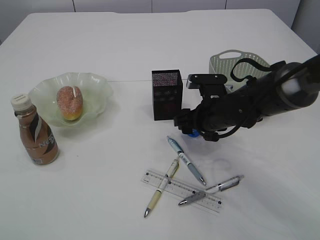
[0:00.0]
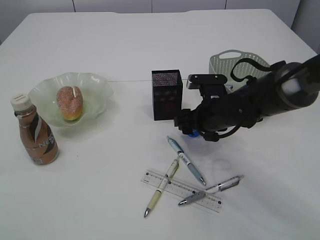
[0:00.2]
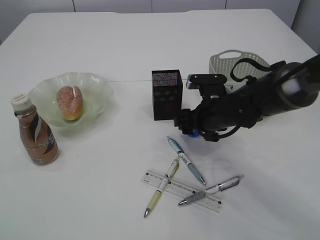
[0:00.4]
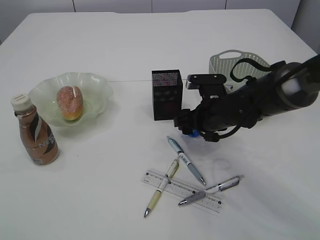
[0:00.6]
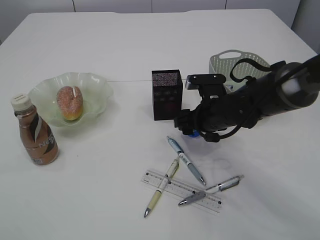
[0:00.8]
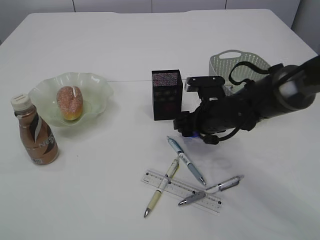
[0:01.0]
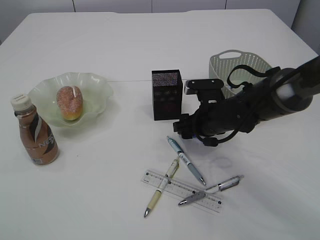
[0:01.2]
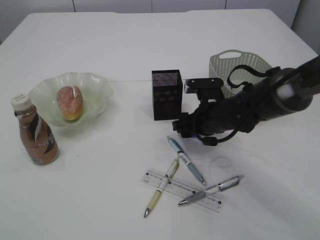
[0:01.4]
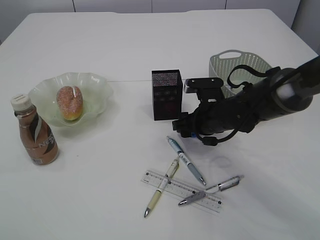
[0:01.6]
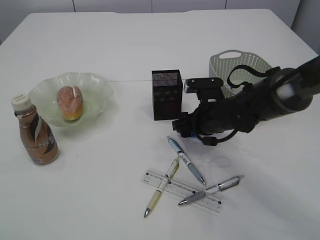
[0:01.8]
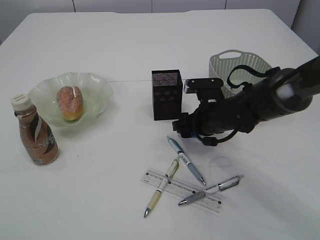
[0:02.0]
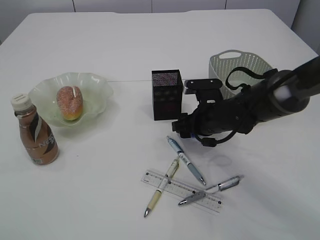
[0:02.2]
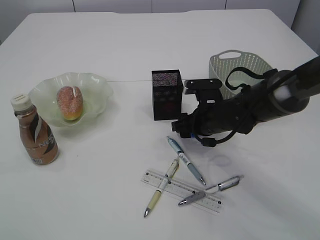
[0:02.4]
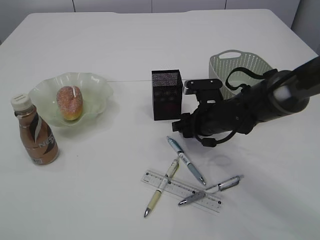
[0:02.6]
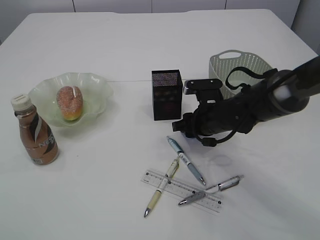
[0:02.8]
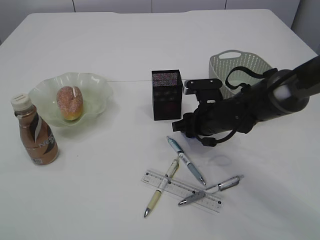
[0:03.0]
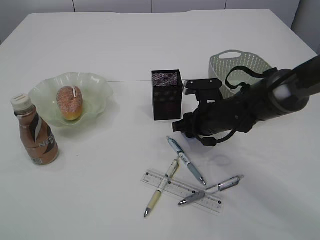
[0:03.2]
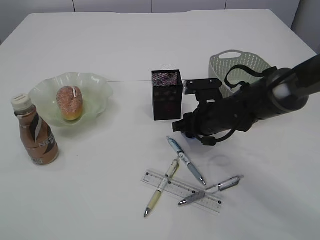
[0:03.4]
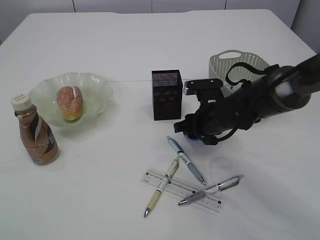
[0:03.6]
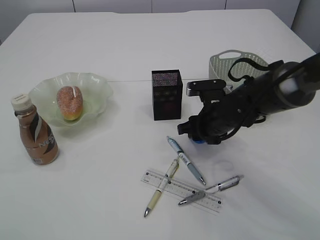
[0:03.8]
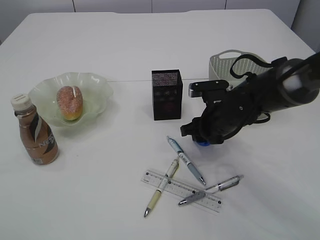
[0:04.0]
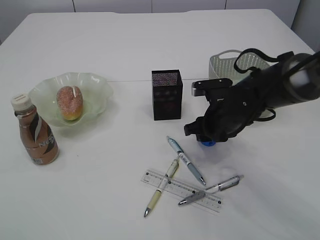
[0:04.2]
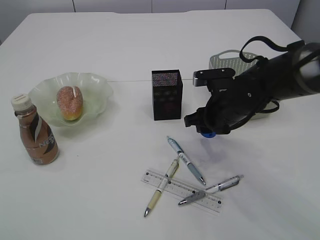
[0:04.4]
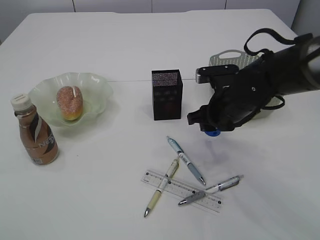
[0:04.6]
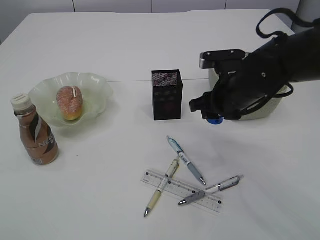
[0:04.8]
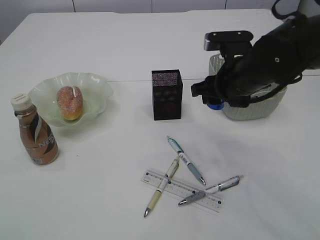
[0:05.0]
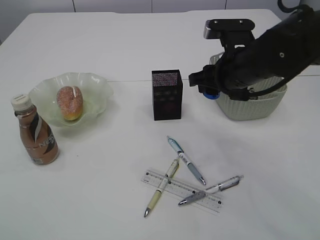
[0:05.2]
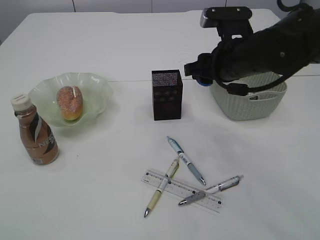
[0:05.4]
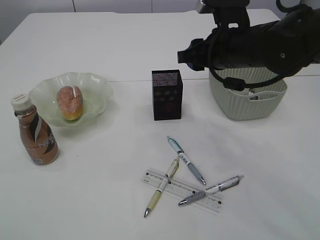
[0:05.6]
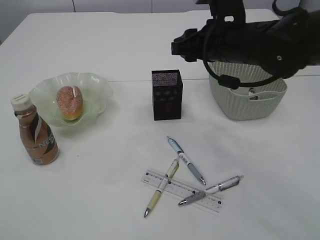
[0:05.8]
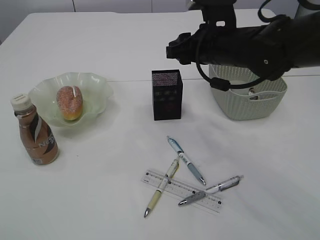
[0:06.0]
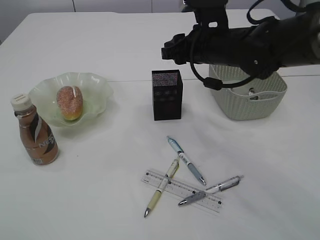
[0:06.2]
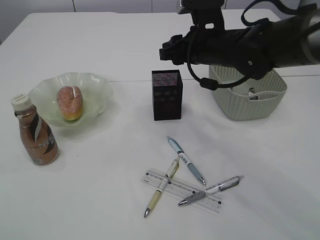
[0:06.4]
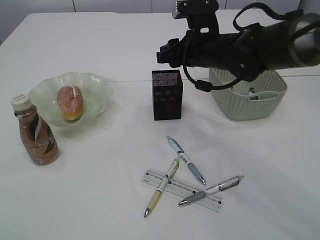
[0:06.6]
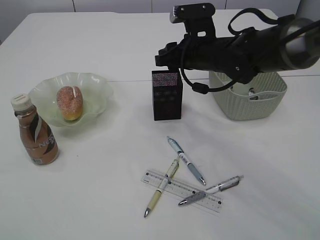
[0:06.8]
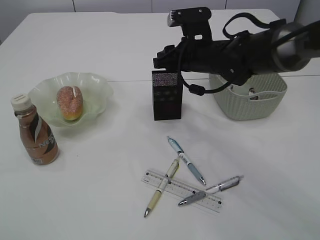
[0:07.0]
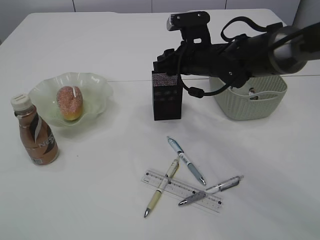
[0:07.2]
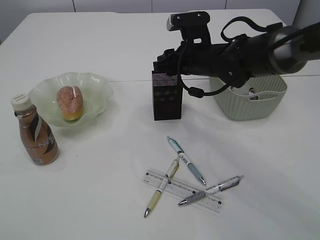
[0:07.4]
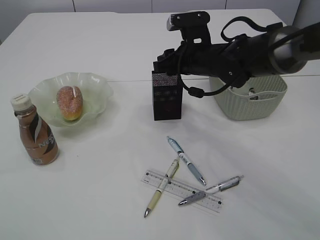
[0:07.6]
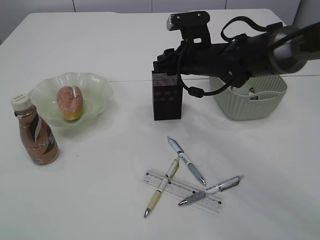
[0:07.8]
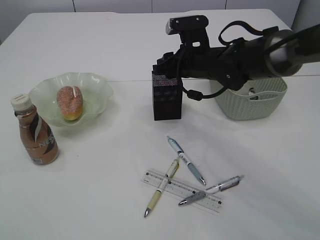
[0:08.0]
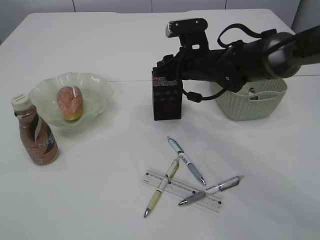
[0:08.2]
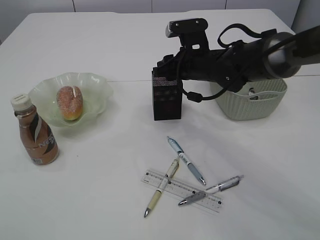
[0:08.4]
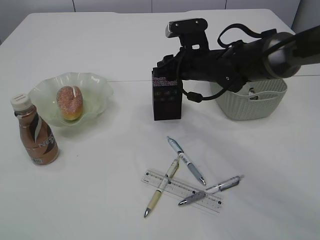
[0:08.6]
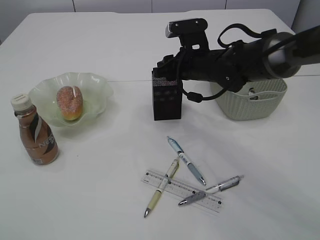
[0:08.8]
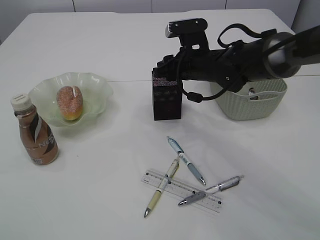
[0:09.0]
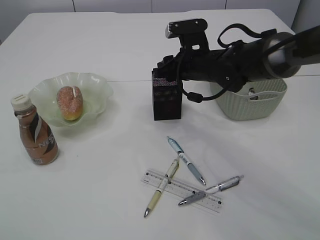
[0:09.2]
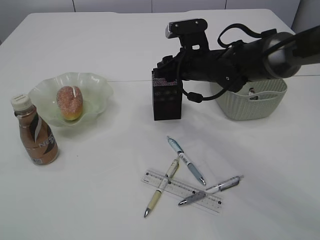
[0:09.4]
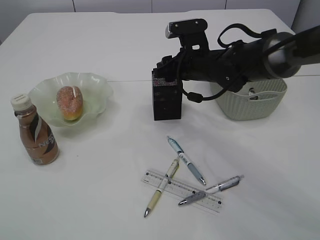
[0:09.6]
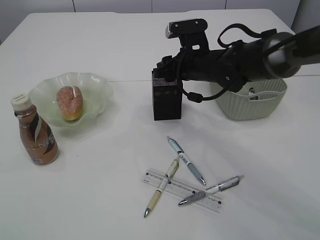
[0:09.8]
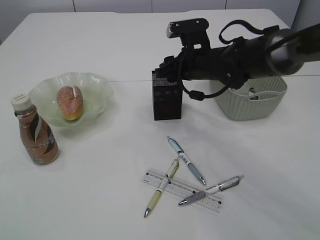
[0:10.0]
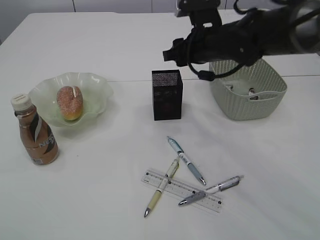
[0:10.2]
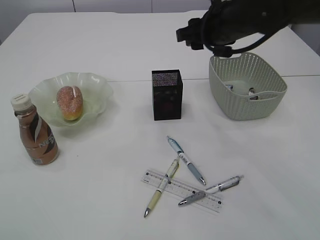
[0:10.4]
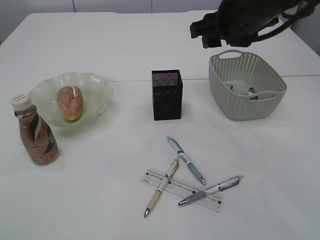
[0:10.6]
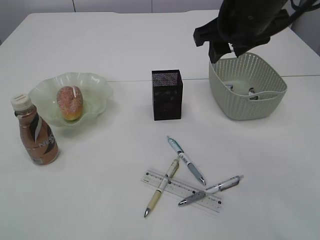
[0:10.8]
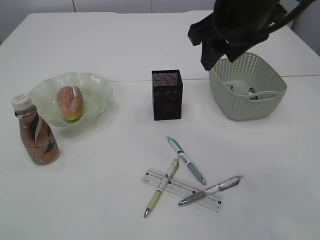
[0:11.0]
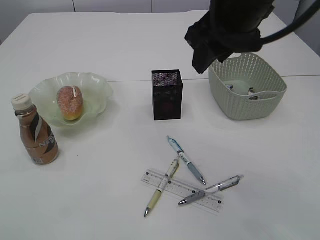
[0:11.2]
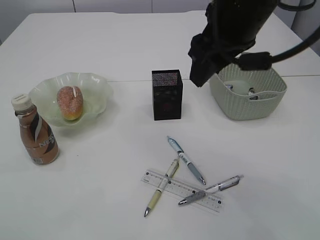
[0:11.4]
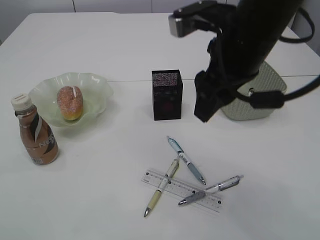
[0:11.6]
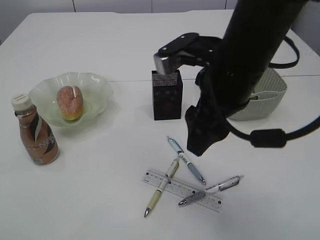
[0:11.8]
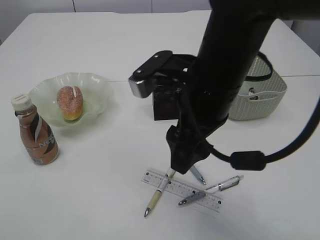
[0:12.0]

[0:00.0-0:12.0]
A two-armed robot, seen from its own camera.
Step, 0:00.0 to 0:04.8: Pick up the blue pencil sharpener.
Step, 0:05.0 to 0:10.2: Place the blue pencil sharpener into the pen holder.
0:00.0 to 0:01.6: Both grippers stay about where they are.
0:01.6 to 0:03.0: The right gripper closes up.
0:03.0 to 0:04.4: The right gripper changes place by some 5 cm.
0:04.4 to 0:06.0: The right gripper goes approximately 10 cm upward.
0:06.0 to 0:07.6: The right gripper is displaced forward by about 5 cm.
0:07.6 to 0:09.0: Neither gripper changes place.
0:09.0 to 0:10.4: The right gripper moves upward, about 10 cm.
0:10.4 to 0:12.0: The right gripper goes roughly 15 cm backward and to the left.

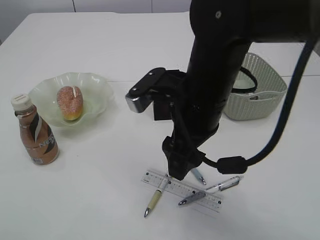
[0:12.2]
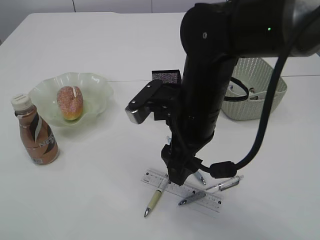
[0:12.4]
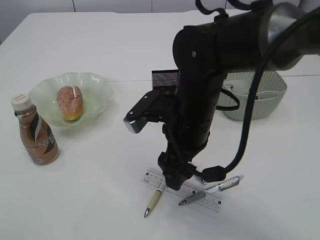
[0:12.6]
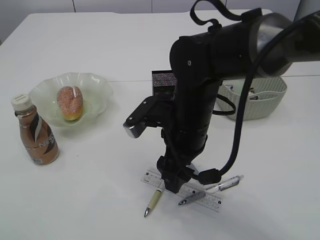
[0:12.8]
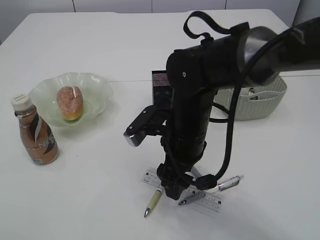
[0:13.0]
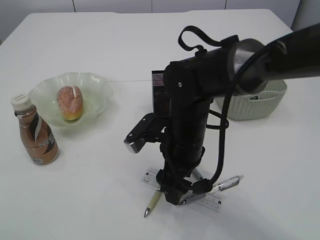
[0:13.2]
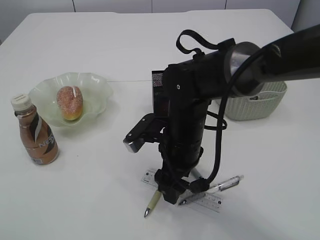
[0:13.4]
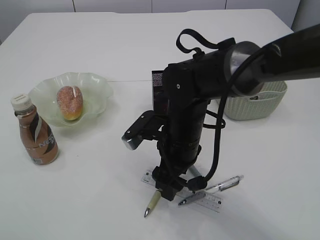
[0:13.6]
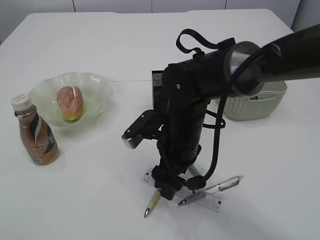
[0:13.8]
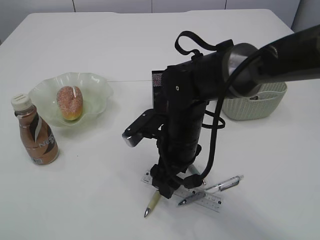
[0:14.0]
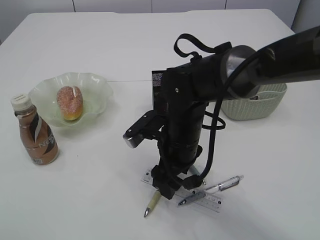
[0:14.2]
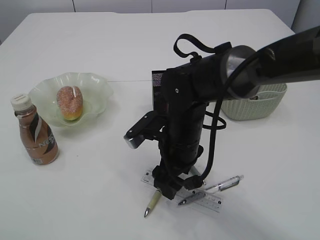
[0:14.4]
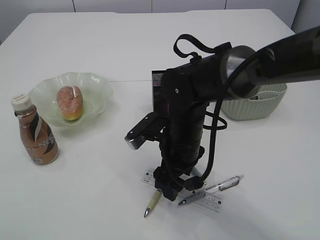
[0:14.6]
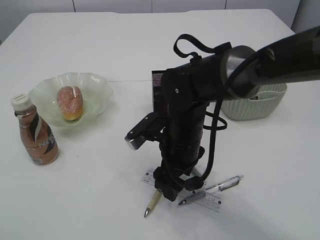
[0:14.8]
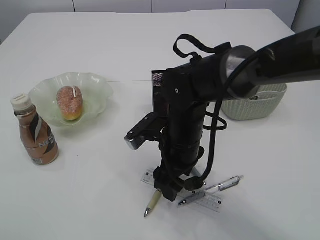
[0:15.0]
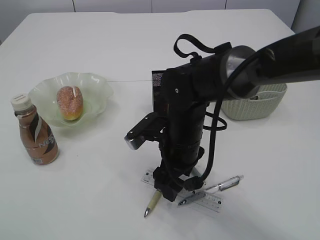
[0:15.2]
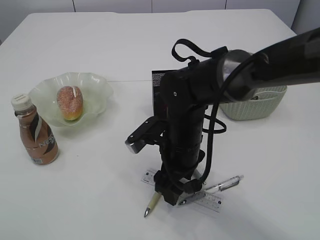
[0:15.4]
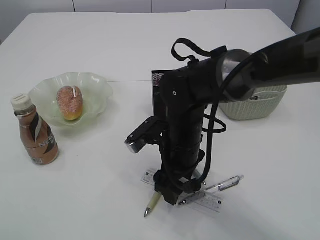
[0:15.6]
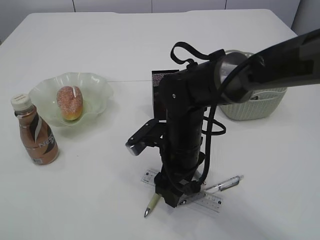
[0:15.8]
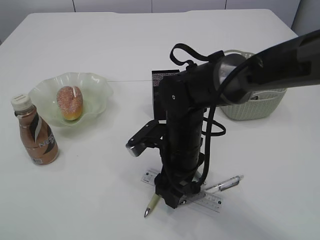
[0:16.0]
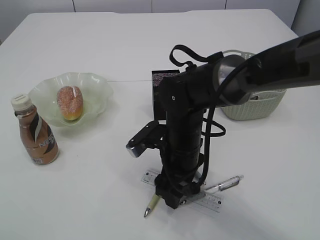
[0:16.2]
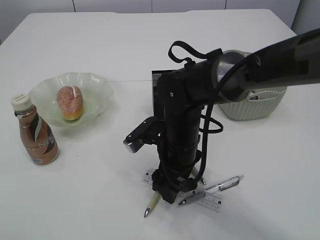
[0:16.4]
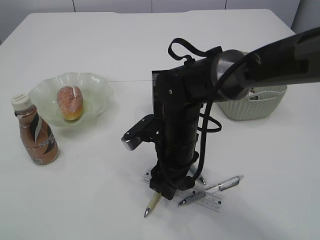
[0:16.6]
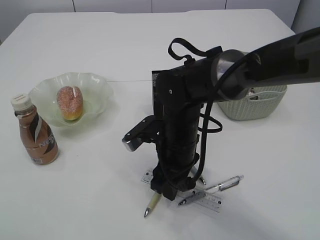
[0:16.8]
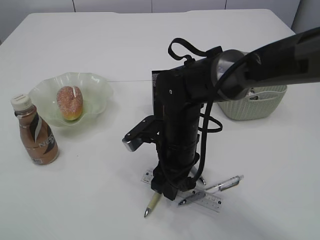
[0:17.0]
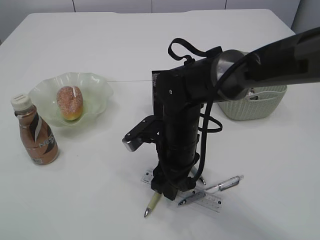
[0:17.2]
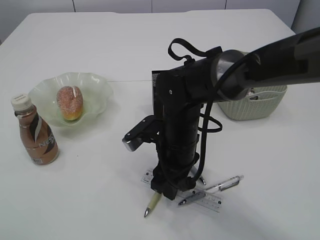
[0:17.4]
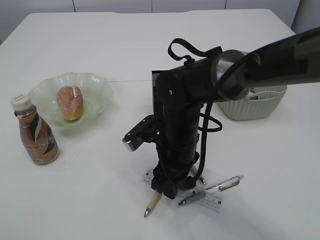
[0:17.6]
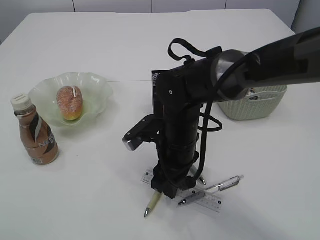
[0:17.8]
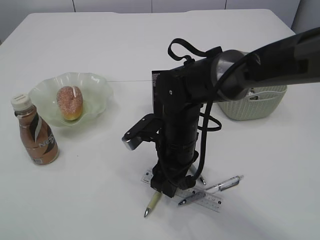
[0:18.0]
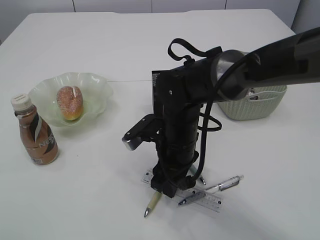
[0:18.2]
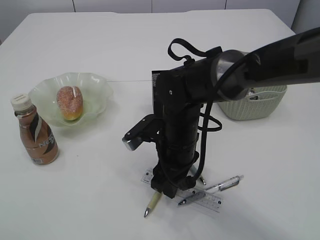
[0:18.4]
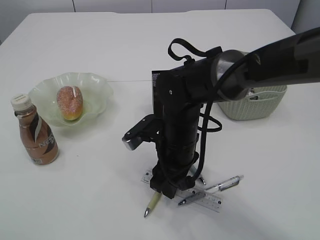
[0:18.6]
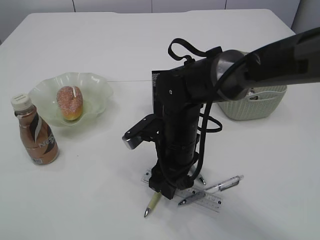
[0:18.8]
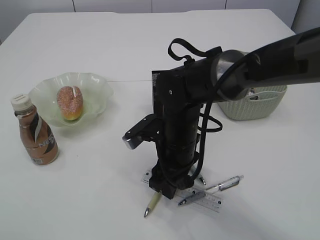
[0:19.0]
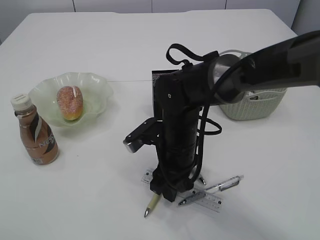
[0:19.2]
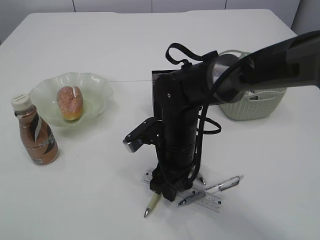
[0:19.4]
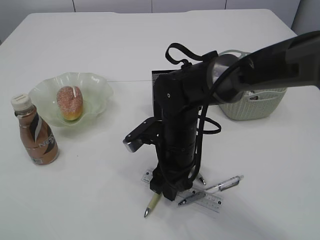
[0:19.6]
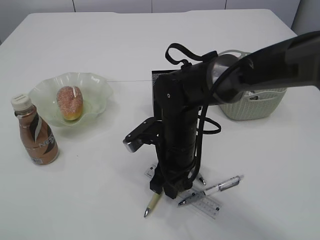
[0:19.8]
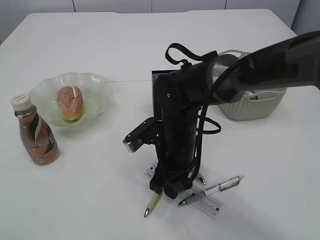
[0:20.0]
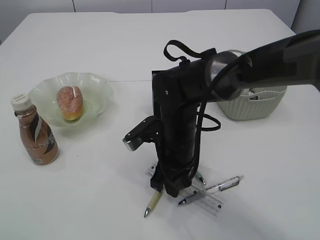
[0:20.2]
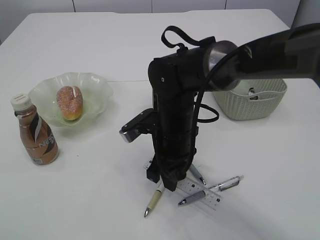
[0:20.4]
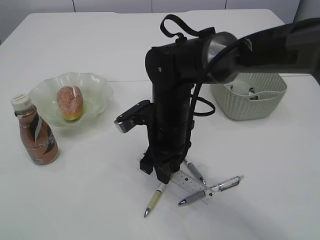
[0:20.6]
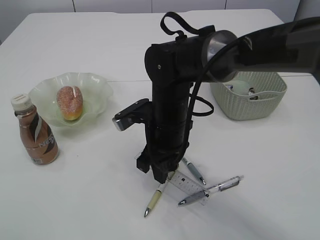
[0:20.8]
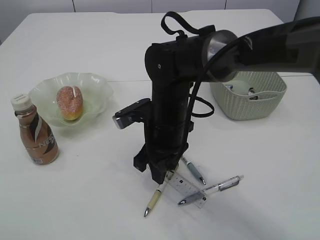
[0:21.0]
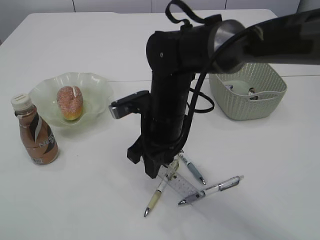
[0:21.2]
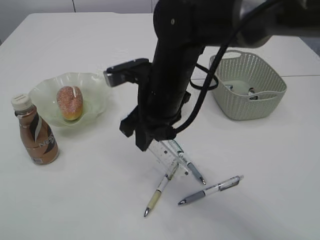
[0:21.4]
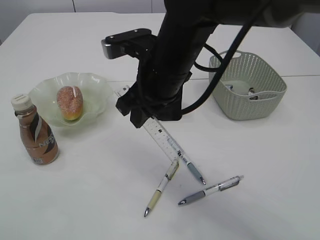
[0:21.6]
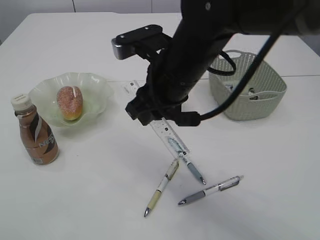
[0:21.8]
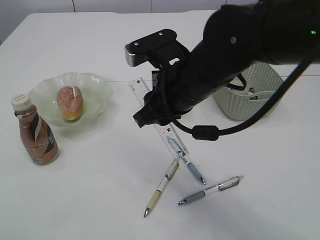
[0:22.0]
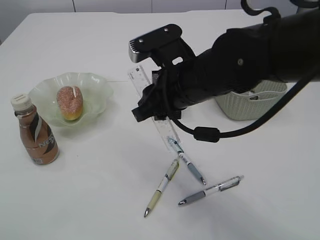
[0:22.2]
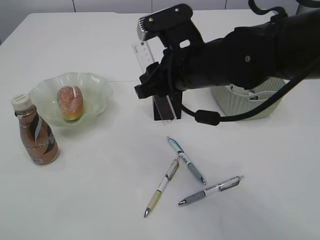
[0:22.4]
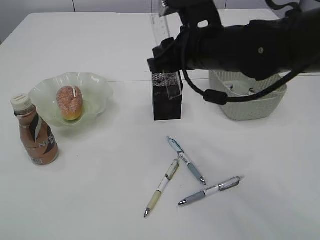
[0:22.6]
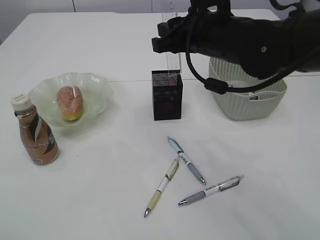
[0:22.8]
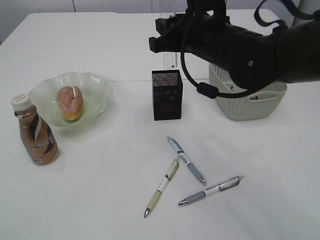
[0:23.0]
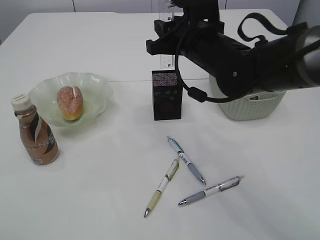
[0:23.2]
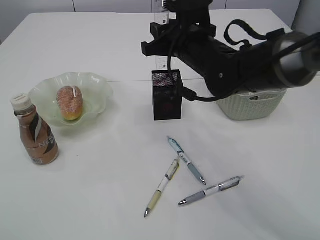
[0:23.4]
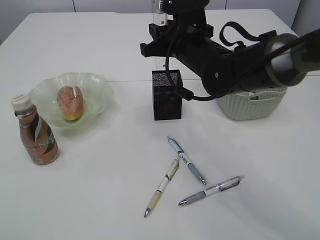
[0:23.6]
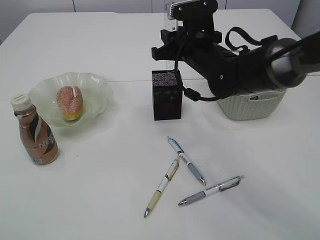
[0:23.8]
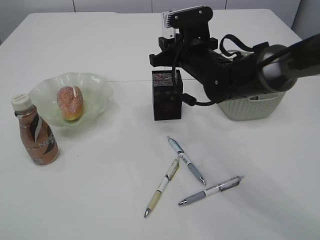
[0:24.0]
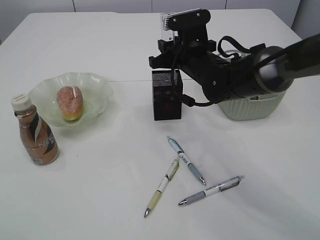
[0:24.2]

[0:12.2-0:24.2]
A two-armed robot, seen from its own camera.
Step, 0:12.2 to 0:21.4: pick up the ruler.
0:12.2 to 0:13.8: The right gripper goes some 10 cm downward.
0:13.8 to 0:15.2: Both grippers stay put.
0:15.2 to 0:16.6: The grippers make only small movements.
0:16.6 to 0:19.8: Both grippers stay about where they are.
0:19.8 to 0:21.2: The right gripper travels upward by roughly 5 cm.
0:21.2 to 0:22.6: The right gripper shifts roughly 10 cm upward and to the right.
0:22.6 to 0:24.2: The right gripper goes roughly 10 cm forward and downward.
